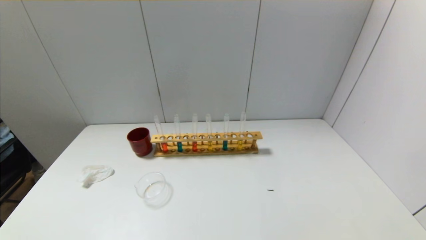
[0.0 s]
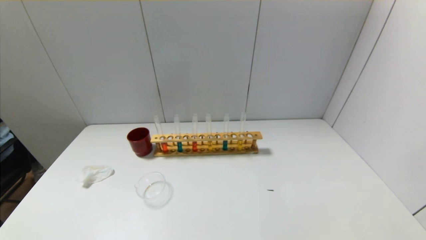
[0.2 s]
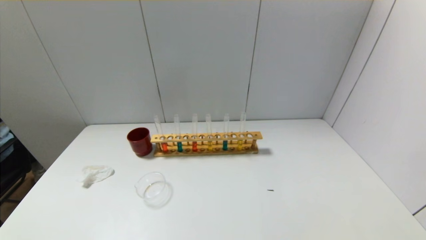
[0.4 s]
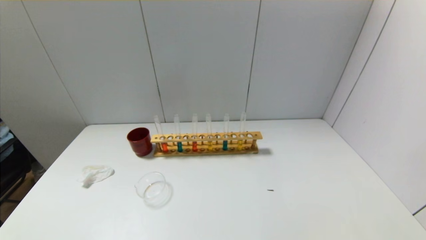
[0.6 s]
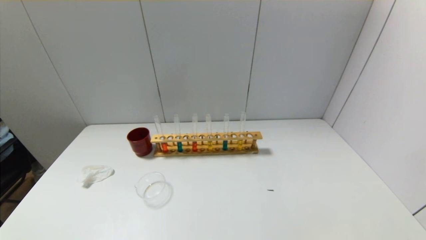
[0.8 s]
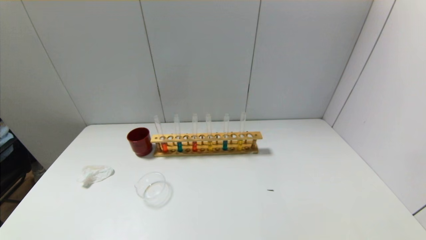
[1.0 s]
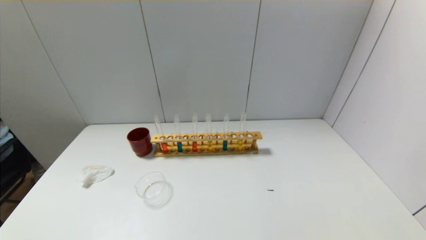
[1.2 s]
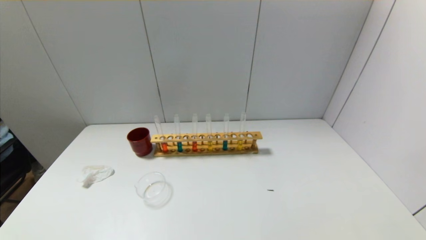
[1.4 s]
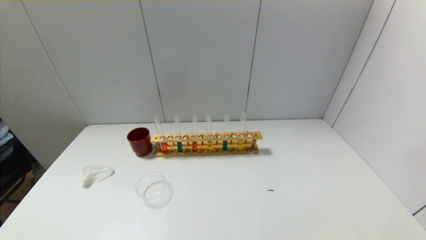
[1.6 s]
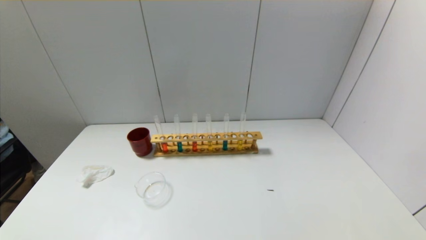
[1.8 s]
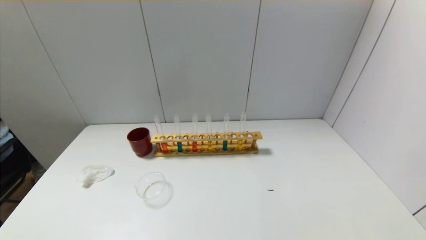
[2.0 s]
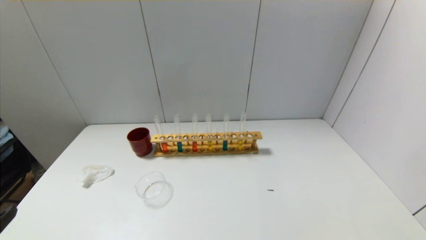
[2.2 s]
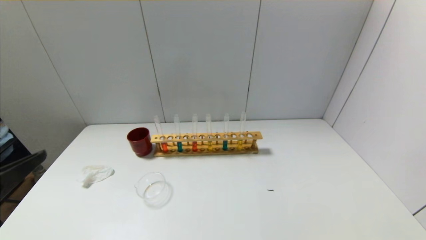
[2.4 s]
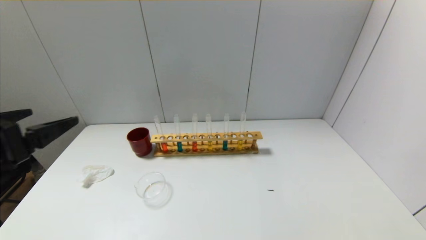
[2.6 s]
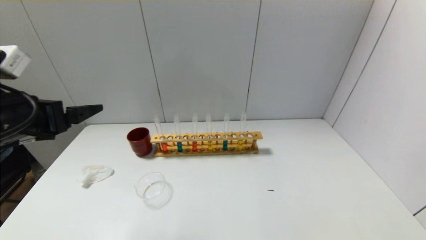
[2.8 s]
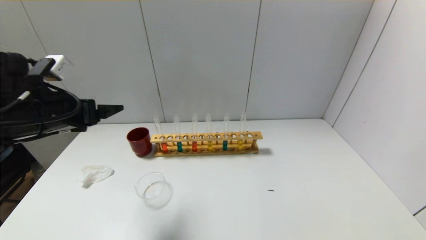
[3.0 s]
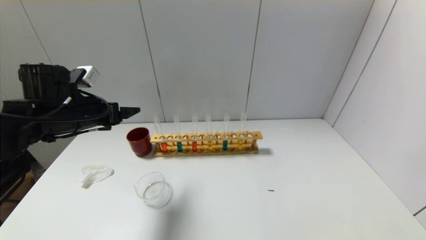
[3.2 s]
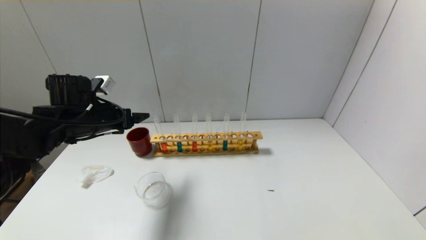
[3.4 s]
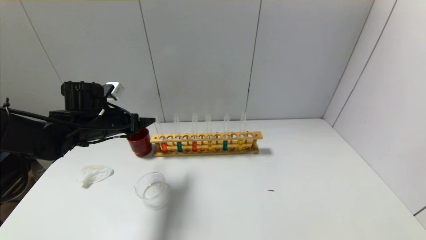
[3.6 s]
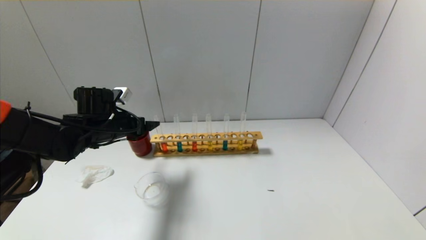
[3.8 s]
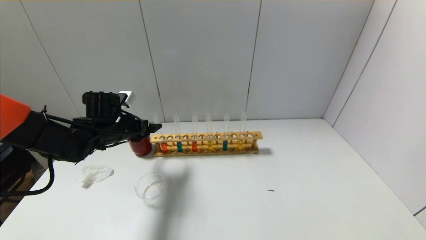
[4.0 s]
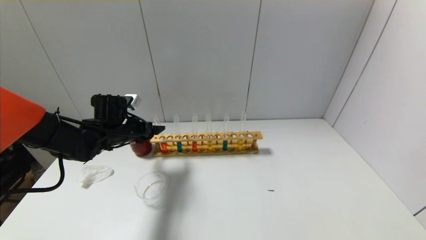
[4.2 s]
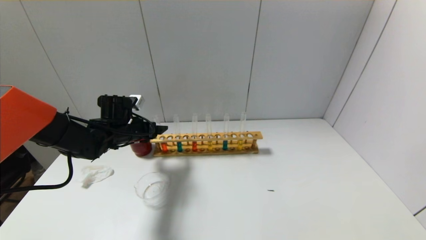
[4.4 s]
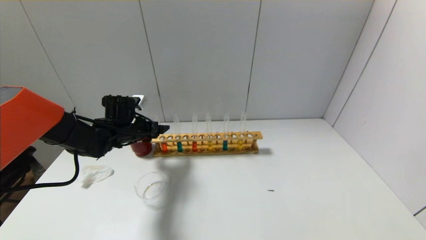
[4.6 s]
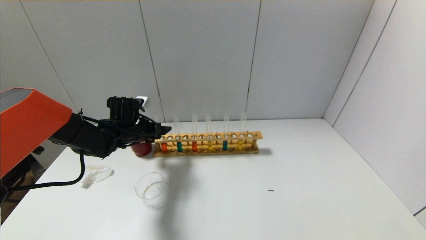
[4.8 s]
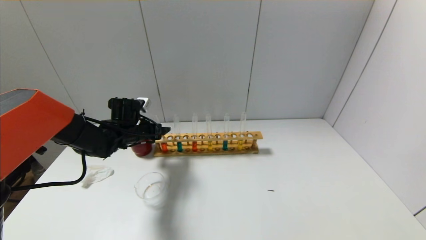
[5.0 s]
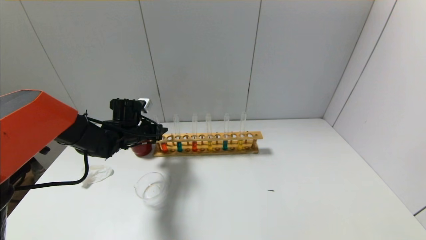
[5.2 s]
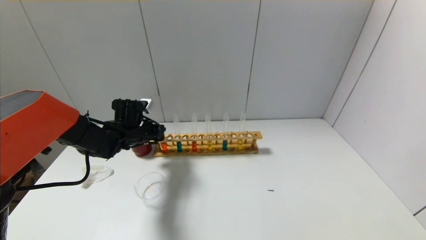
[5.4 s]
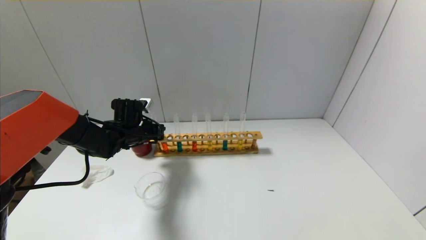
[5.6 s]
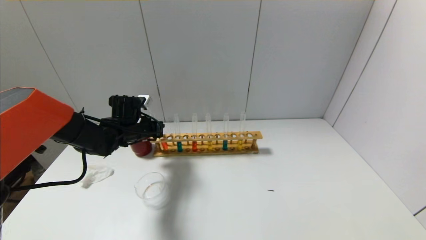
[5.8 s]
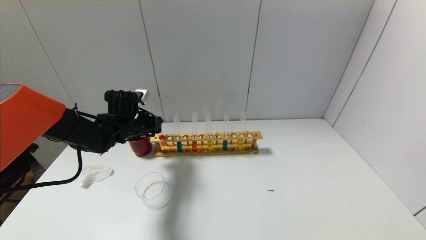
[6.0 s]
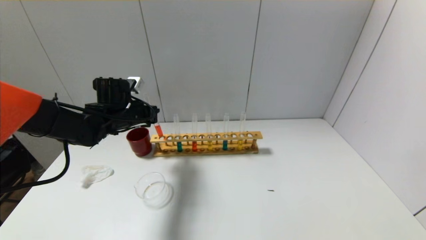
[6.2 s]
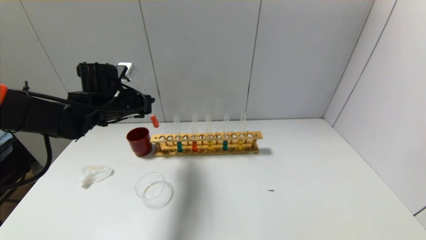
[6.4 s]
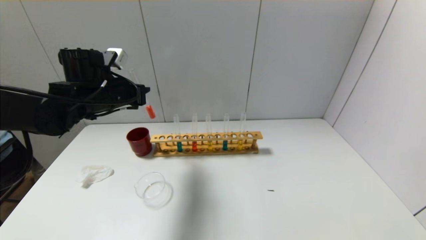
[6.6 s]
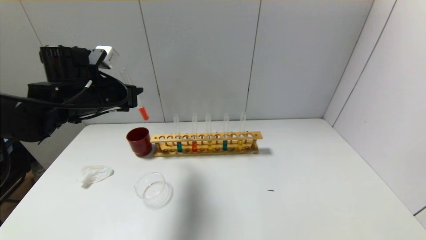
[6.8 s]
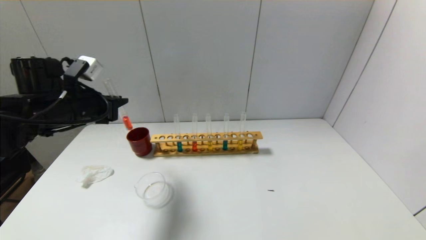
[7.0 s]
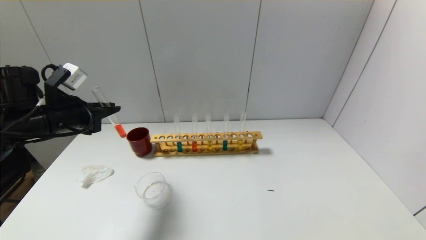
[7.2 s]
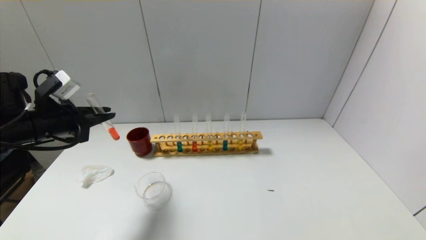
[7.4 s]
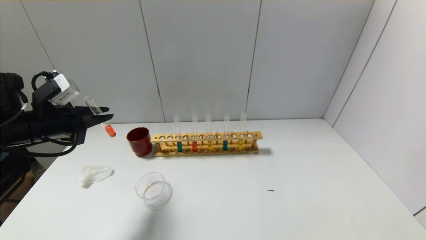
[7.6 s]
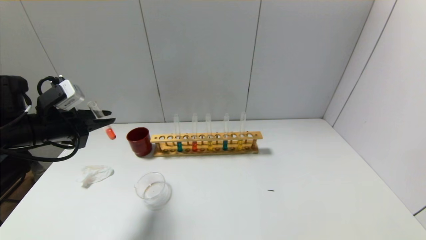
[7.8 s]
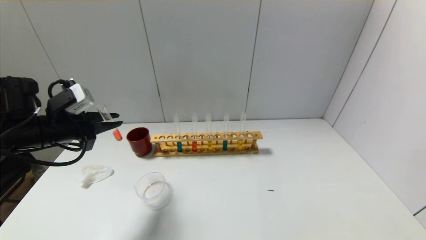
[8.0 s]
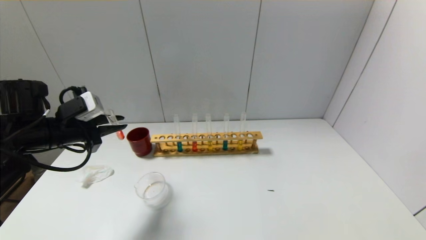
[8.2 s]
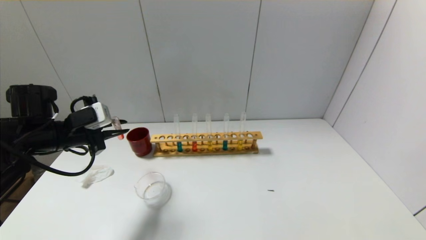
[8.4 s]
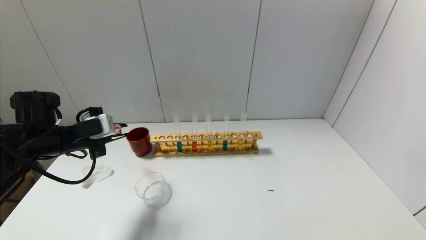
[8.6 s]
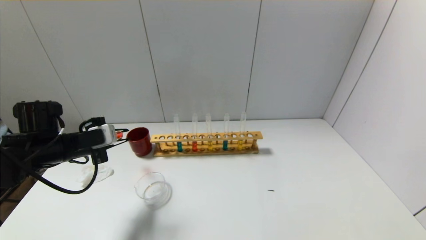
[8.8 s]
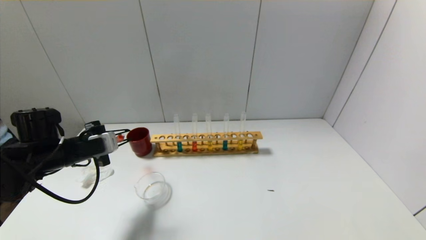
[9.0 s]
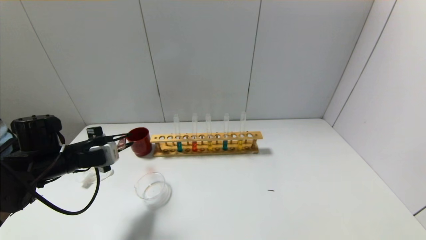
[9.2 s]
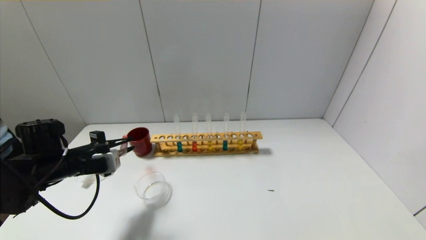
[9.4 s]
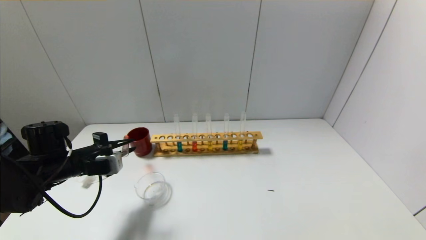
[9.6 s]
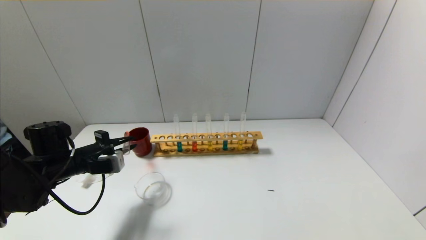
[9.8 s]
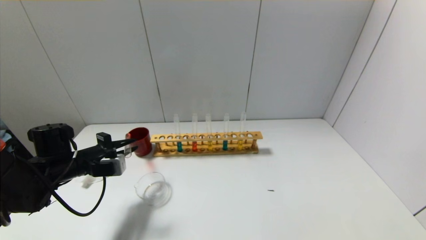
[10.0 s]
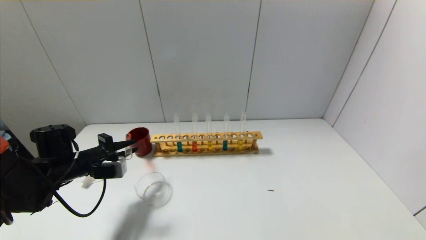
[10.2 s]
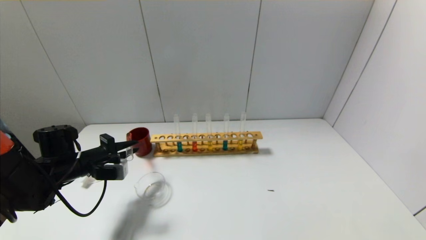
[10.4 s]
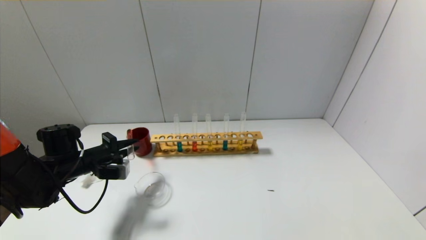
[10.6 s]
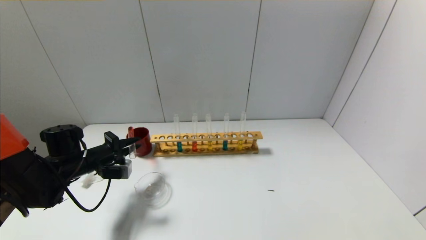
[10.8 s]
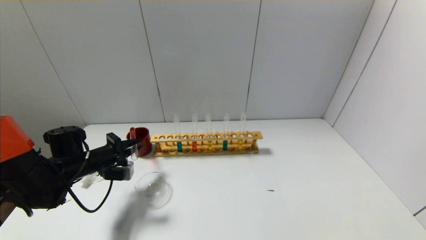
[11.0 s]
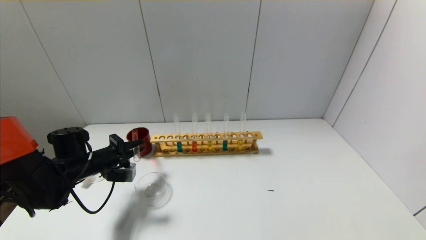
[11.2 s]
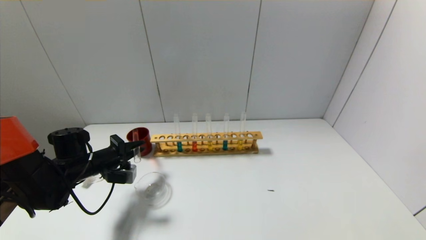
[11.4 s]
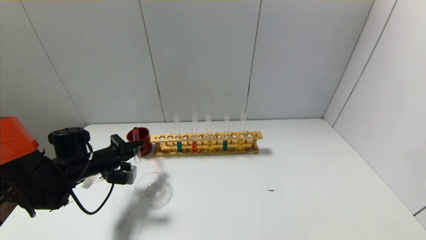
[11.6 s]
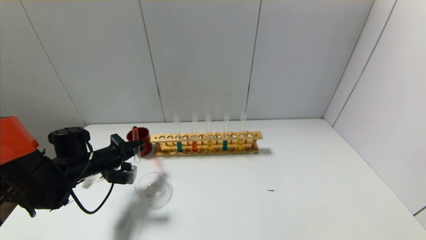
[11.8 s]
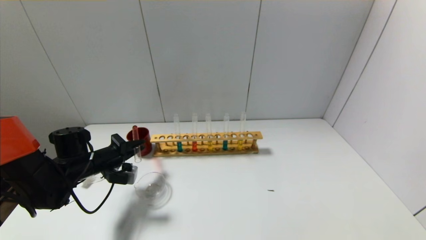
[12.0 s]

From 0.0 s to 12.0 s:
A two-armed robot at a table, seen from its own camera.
Step, from 0.0 s to 5.4 s: Grasp the red reagent with the left gripper.
From 1.6 s to 3.0 s: The left gripper travels forward and upward by approximately 30 cm.
From 3.0 s to 4.4 s: The left gripper travels forward, downward and to the right by approximately 20 cm.
From 4.4 s to 6.0 s: The left gripper closes its fingers.
From 6.0 s to 7.6 s: The left gripper travels backward, to the left and upward by roughly 20 cm.
From 7.6 s to 9.0 s: The left gripper heads downward, covering approximately 5 cm.
From 9.0 s to 10.4 s: The left gripper goes approximately 5 cm downward.
From 10.4 s to 12.0 s: The grippers move only a little.

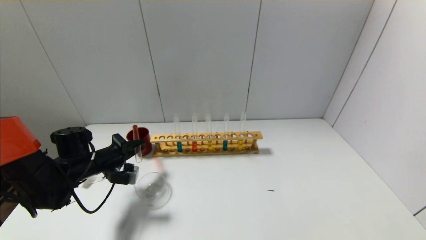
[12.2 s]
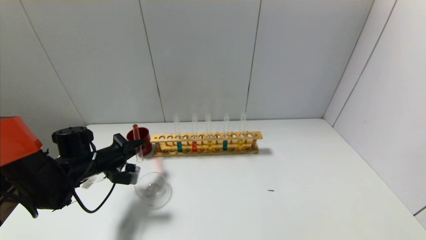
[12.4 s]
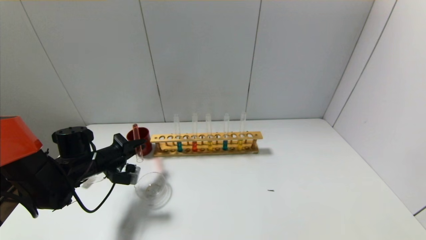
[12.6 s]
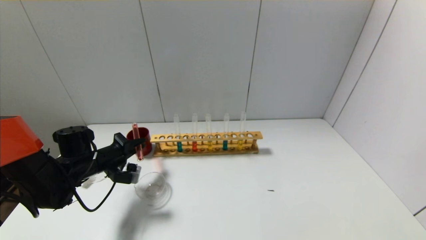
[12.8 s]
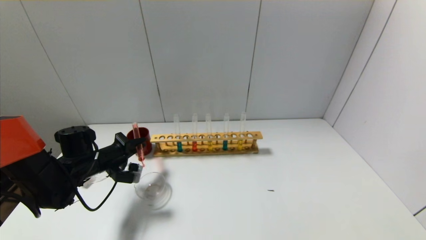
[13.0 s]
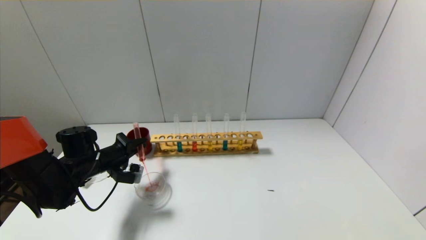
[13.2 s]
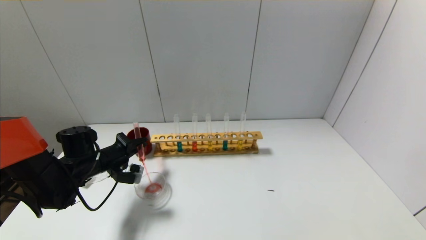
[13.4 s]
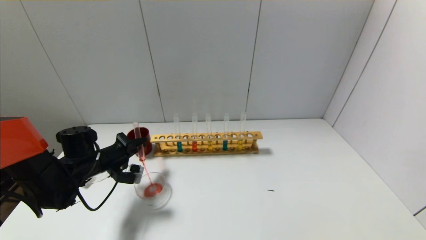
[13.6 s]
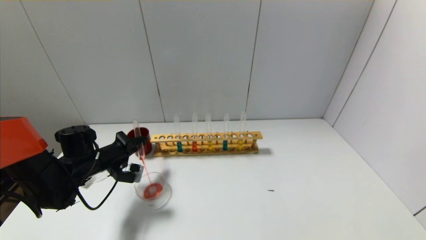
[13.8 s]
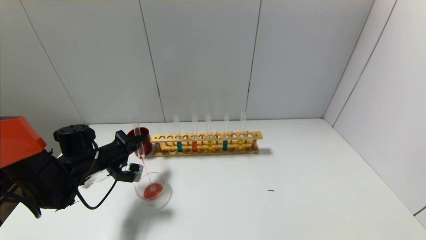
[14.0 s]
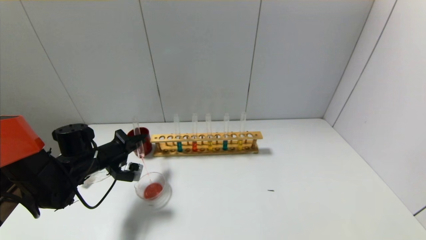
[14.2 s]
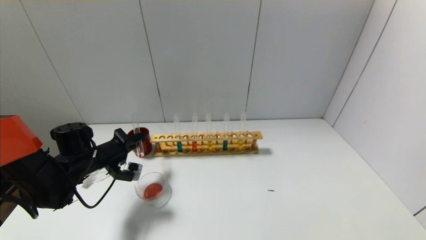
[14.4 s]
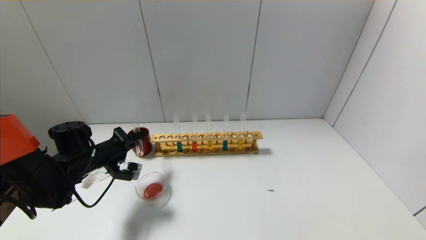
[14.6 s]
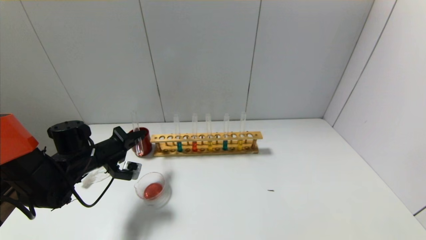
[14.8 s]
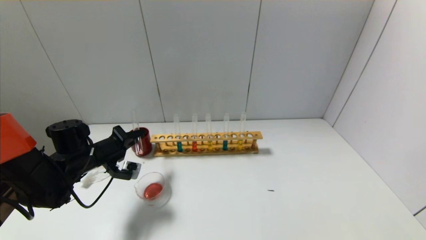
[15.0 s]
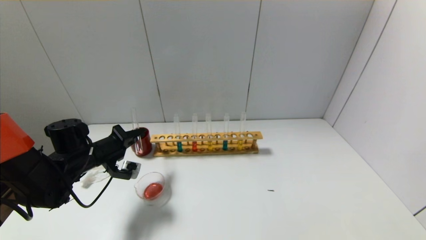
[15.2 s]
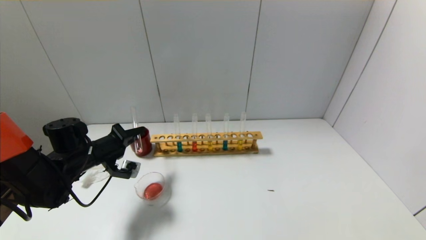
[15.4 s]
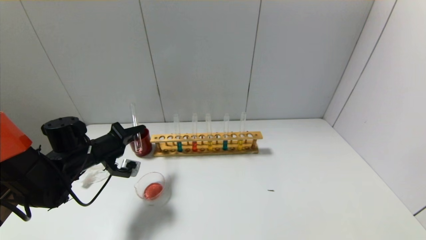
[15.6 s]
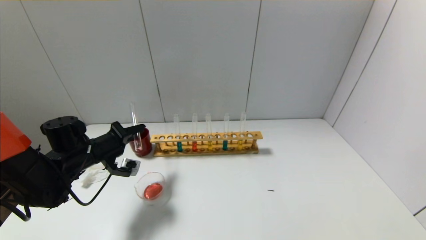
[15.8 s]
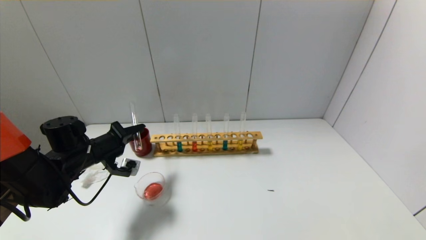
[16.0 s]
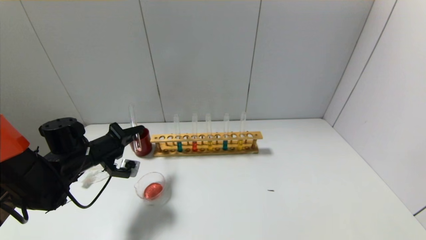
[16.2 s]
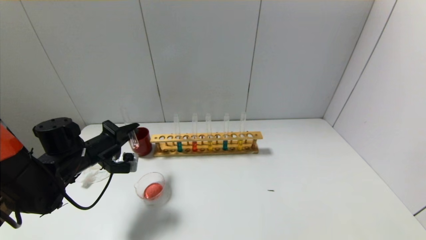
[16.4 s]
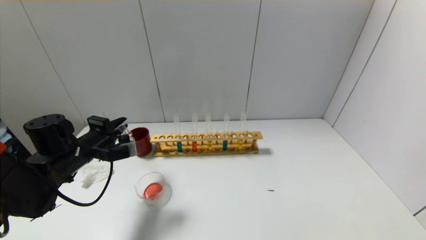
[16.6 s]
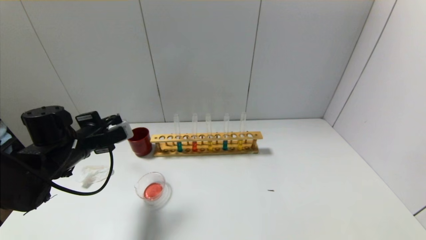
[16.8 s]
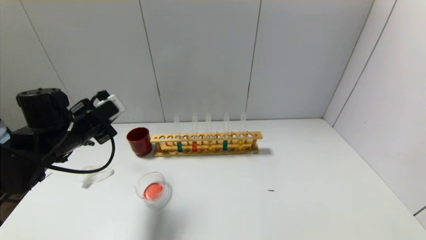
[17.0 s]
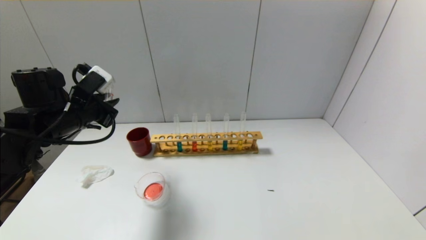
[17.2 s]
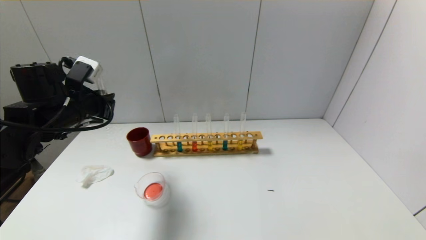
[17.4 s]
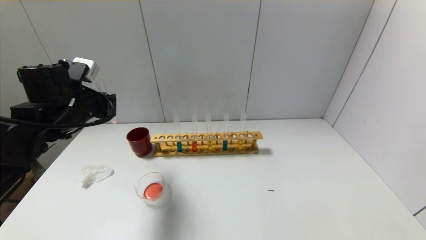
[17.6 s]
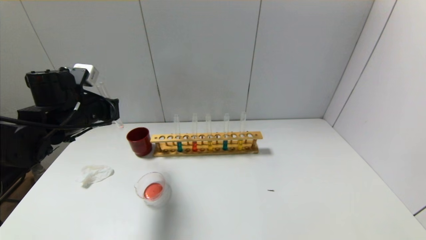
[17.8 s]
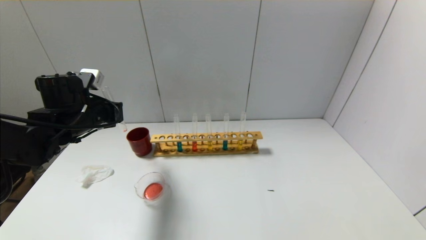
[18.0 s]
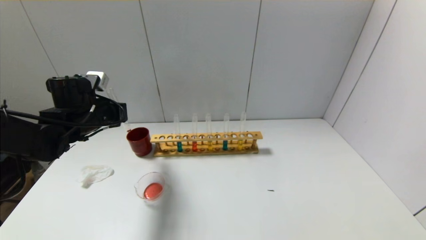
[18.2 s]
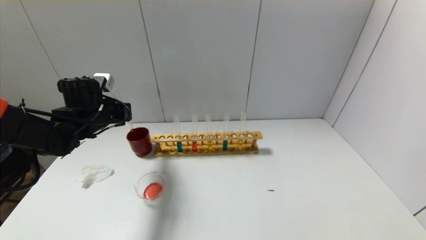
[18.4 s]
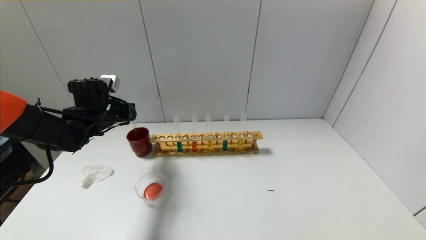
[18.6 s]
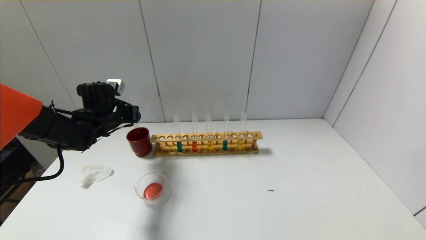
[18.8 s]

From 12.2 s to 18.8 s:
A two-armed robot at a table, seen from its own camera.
Step, from 12.2 s to 16.4 s: Pour the red reagent into the graduated cylinder with the left gripper.
From 12.2 s to 13.8 s: The grippers make only small movements.
From 13.8 s to 15.4 s: There are only small adjustments of the grippers.
From 15.4 s to 17.2 s: The left gripper goes approximately 10 cm upward.
From 17.2 s to 18.8 s: The left gripper shifts some 10 cm forward and downward.
